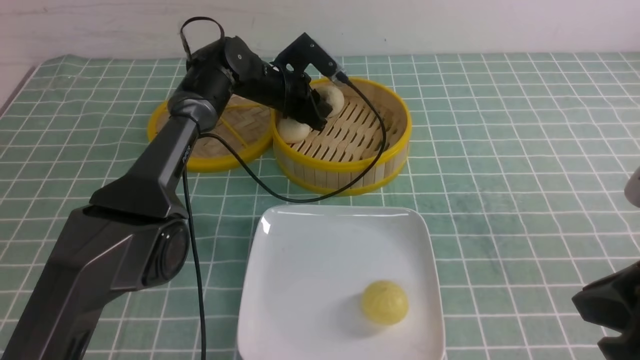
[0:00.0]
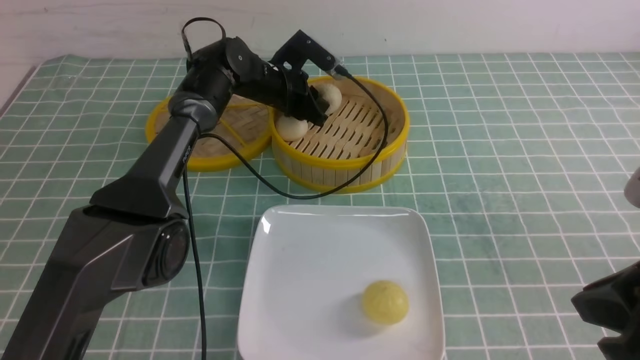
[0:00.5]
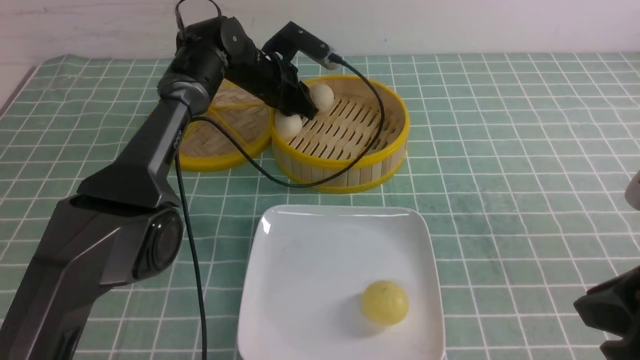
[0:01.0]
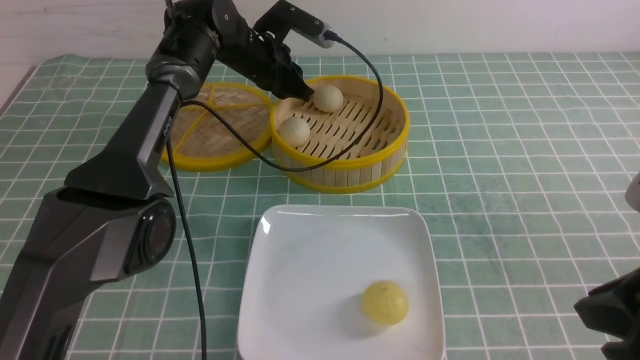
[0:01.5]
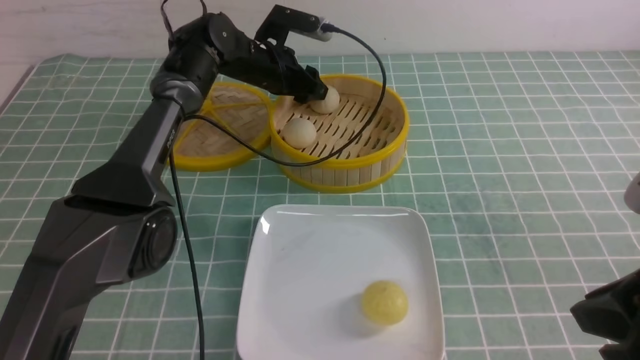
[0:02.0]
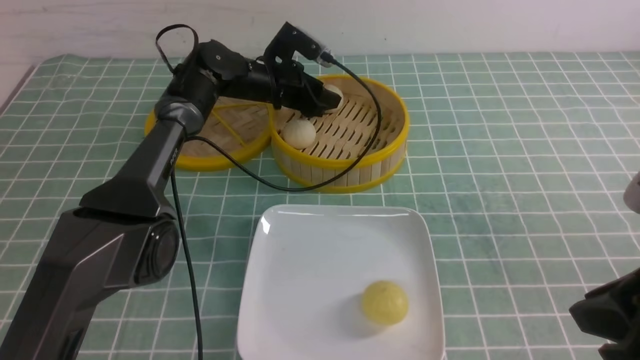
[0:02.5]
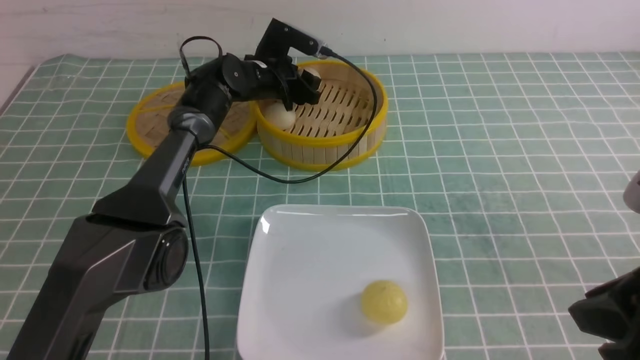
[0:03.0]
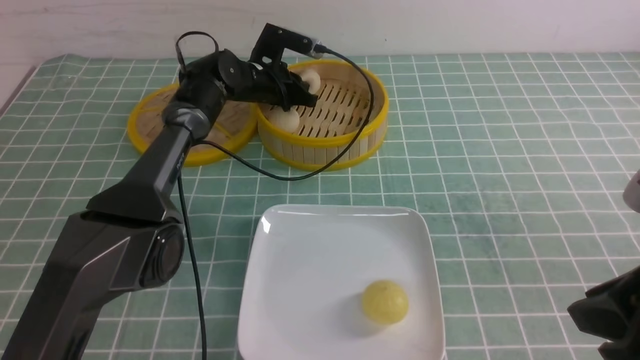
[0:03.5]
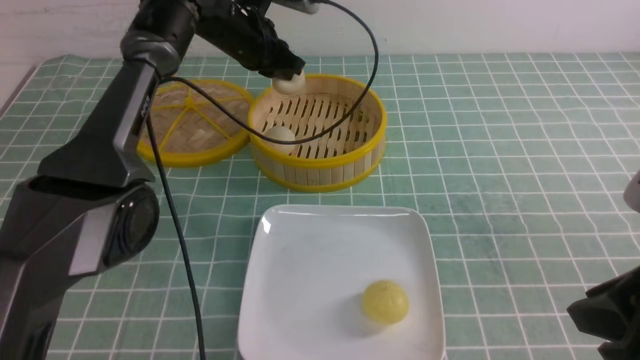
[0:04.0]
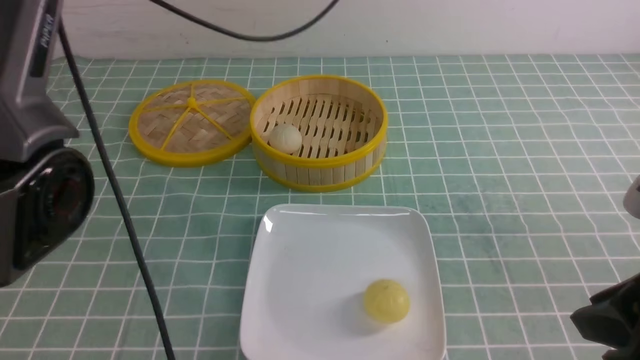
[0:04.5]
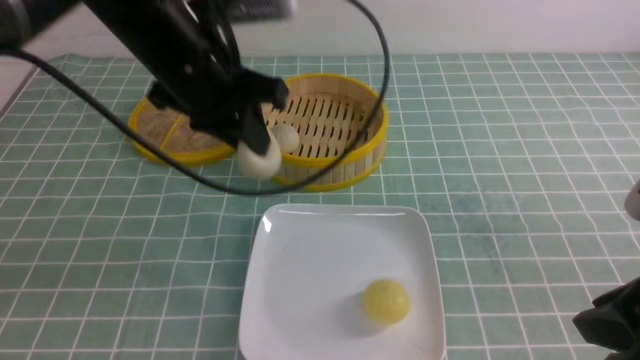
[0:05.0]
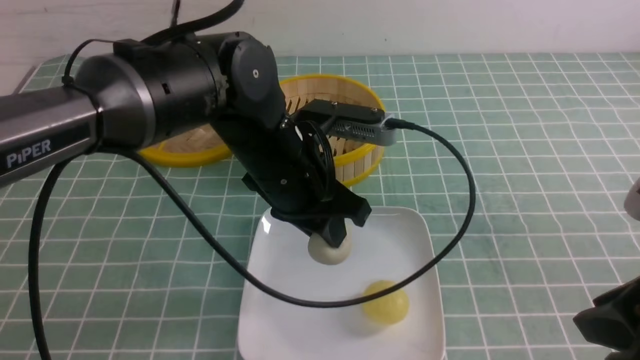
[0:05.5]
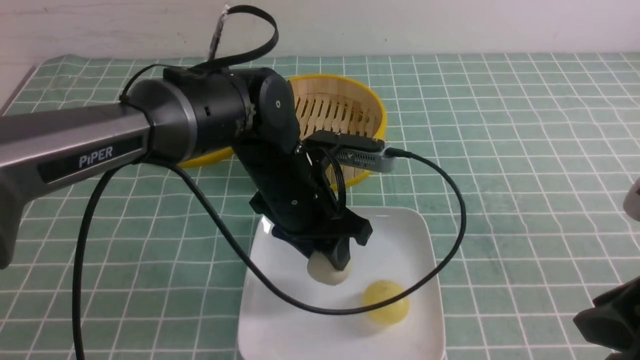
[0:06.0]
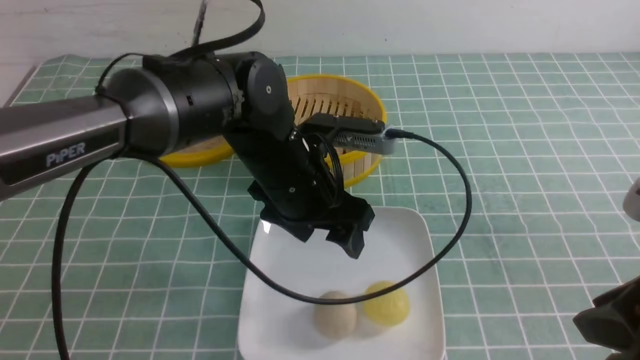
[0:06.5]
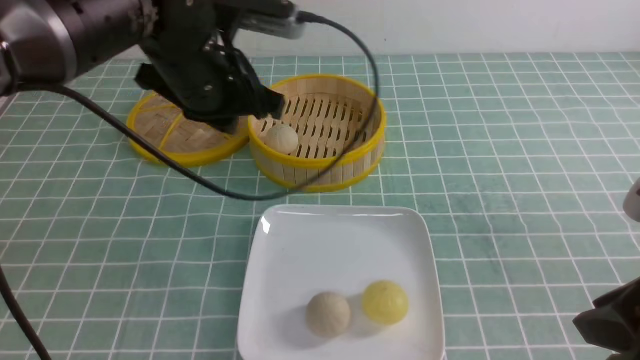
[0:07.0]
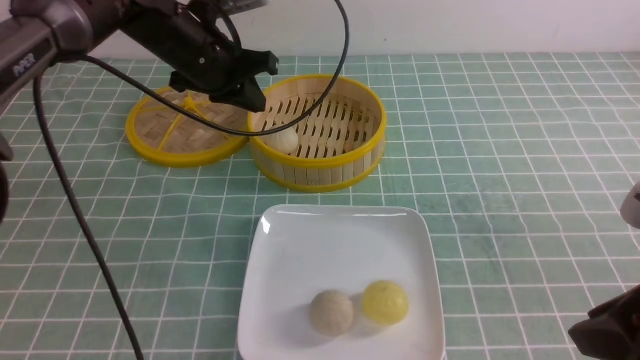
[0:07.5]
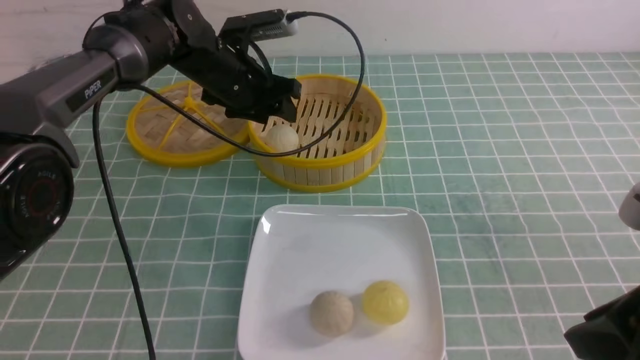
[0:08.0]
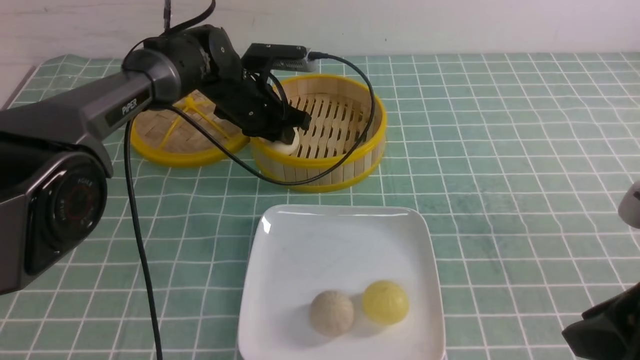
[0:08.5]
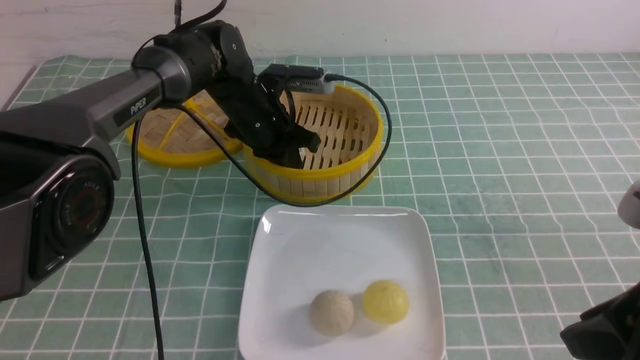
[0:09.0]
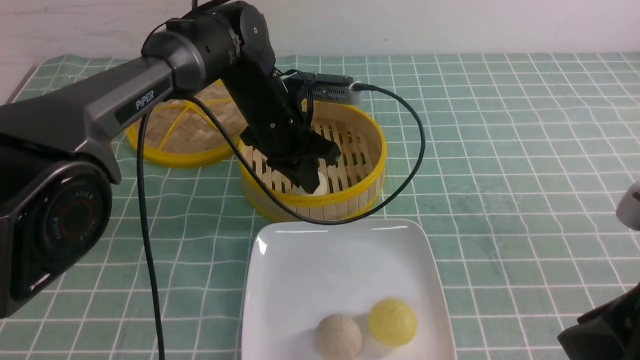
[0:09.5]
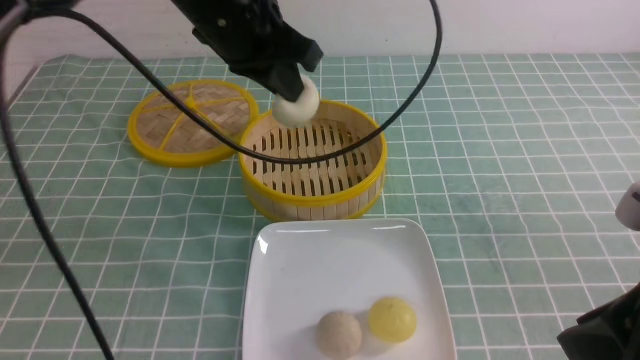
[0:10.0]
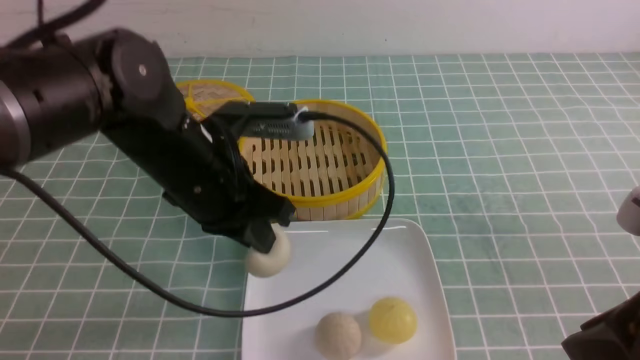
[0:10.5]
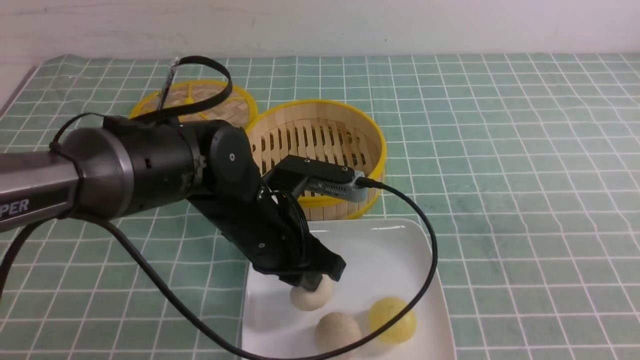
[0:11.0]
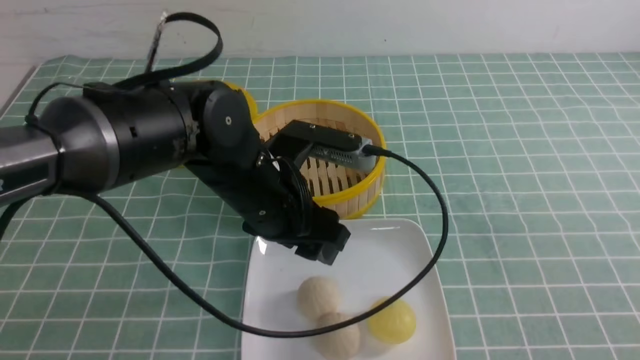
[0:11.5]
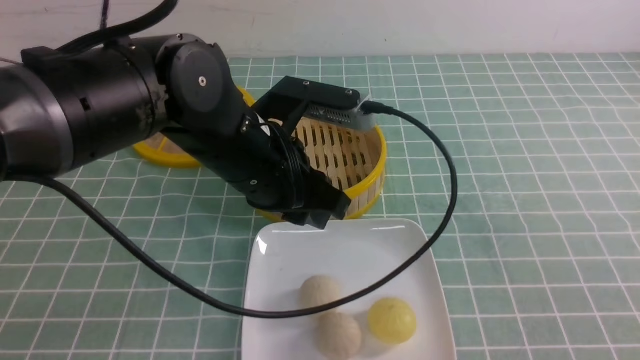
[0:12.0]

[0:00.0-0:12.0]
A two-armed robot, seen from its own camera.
Step, 0:00.0 to 0:03.5: use the left arm to grab the steamed stuffed bun that is closest to it.
Step, 0:04.0 to 0:06.0: use the left arm to put the steamed stuffed bun into the plate.
Step, 0:06.5 to 0:09.5: use the left arm to grab the steamed stuffed bun that is closest to it.
Step, 0:10.0 to 0:11.0: use the left arm to put the steamed stuffed bun into the plate.
0:00.0 to 0:02.0: The left gripper opens its fingers.
0:02.0 to 0:04.0: The left gripper shifts roughly 10 cm upward, and closes its fingers.
0:04.0 to 0:06.0: The left gripper heads backward, covering some 20 cm, and opens up.
0:06.0 to 0:08.0: The left gripper shifts some 20 cm forward and to the left, and closes, then opens again.
0:08.0 to 0:10.0: The left gripper goes roughly 20 cm upward and backward, and closes.
0:10.0 to 0:12.0: The right gripper goes some 10 cm backward and to the right, and closes. The left gripper goes approximately 10 cm backward and downward, and opens, then closes again.

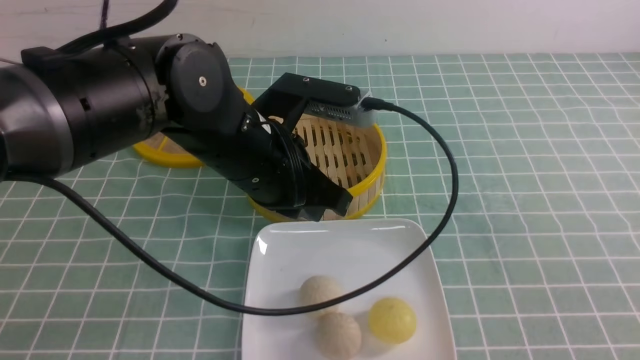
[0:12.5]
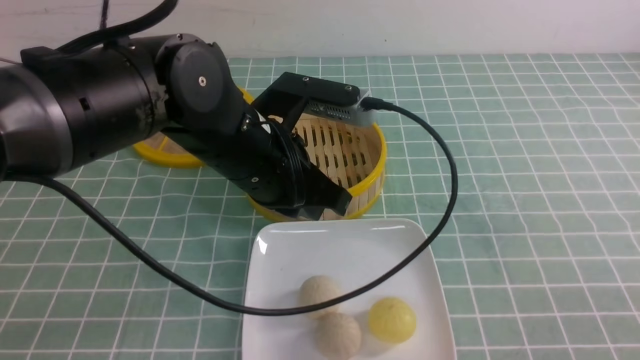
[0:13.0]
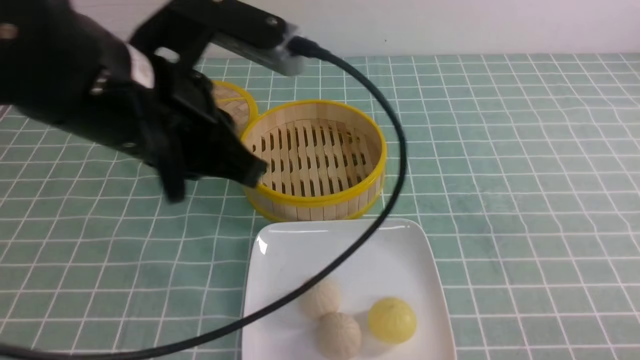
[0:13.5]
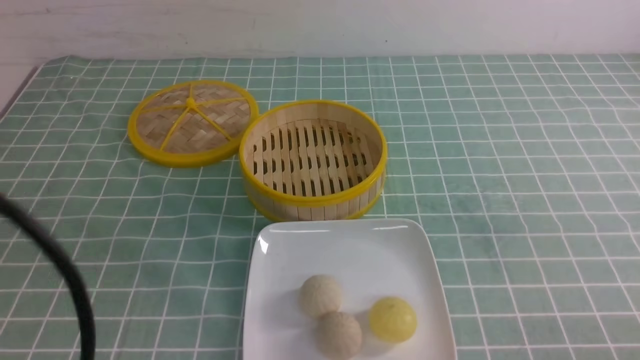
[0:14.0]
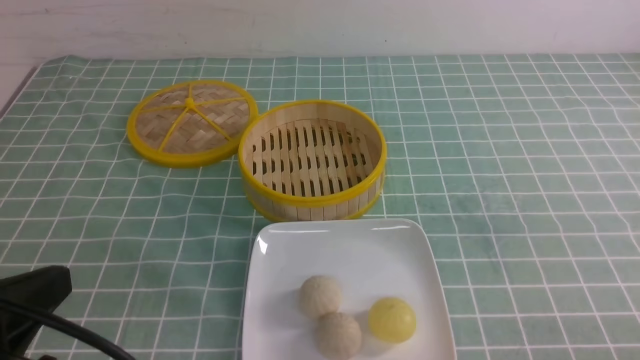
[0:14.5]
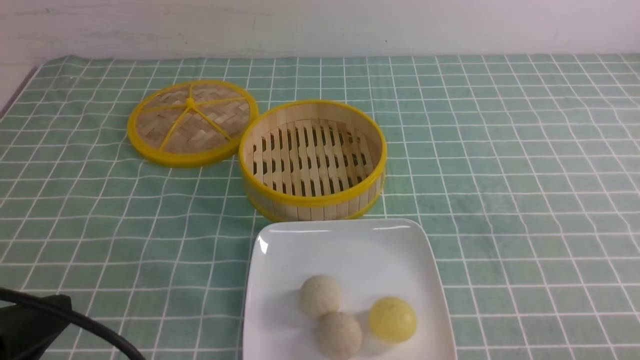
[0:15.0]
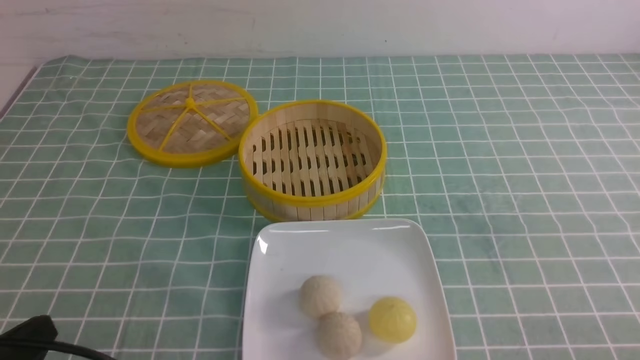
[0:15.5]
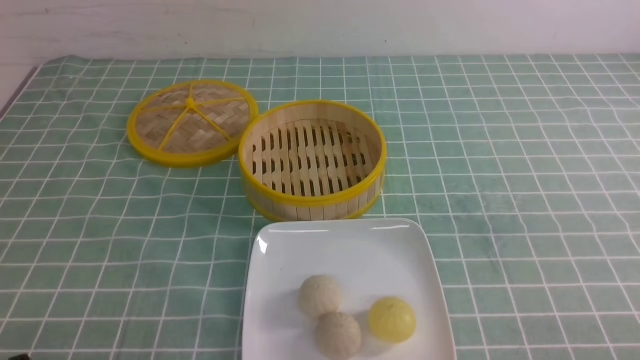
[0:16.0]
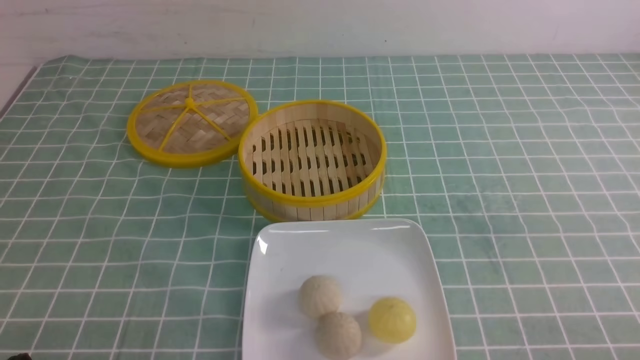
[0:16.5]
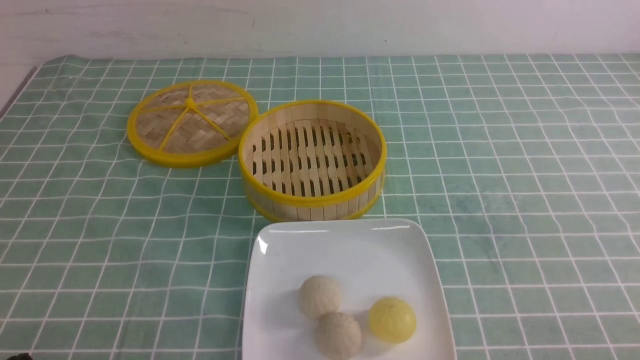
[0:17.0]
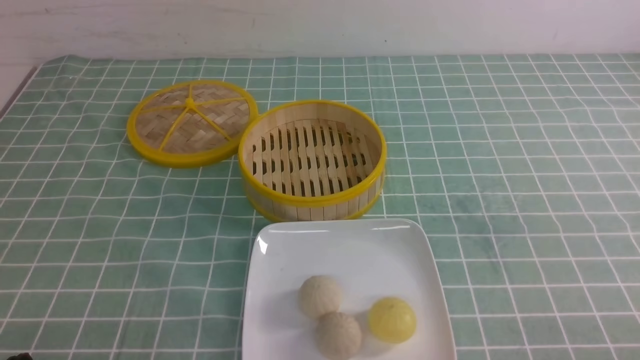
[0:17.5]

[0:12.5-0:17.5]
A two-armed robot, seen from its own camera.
0:12.5 to 0:15.0: The right gripper heads downward, covering roughly 10 cm; the left gripper heads backward and to the left, covering about 25 cm.
0:15.0 to 0:17.5: The left gripper goes about 10 cm downward.
